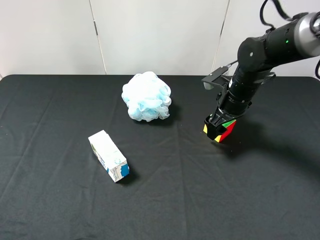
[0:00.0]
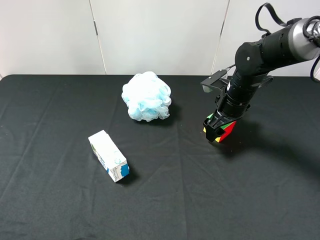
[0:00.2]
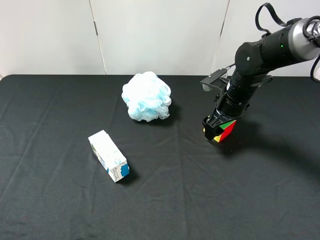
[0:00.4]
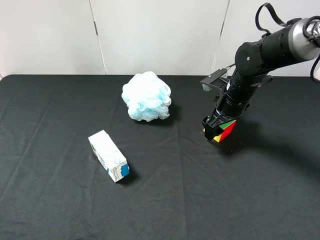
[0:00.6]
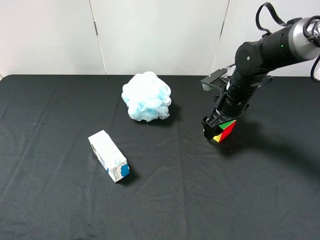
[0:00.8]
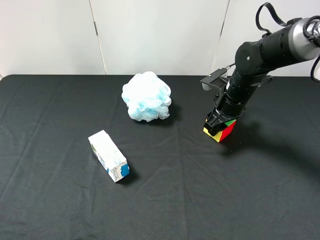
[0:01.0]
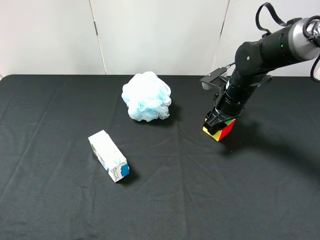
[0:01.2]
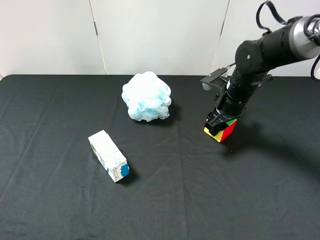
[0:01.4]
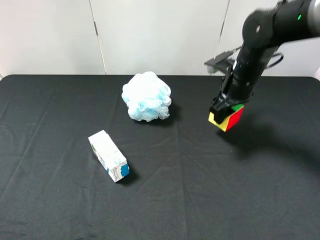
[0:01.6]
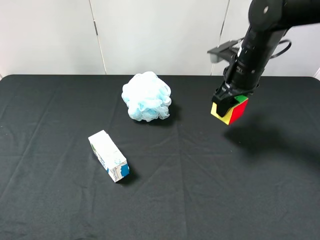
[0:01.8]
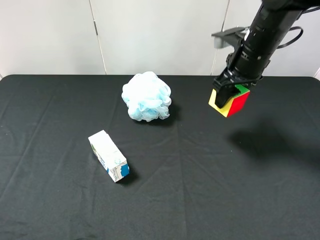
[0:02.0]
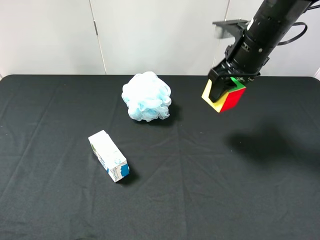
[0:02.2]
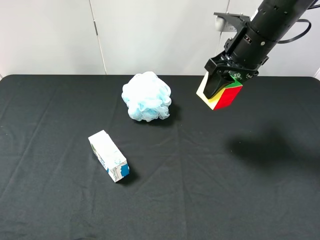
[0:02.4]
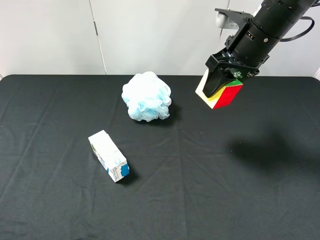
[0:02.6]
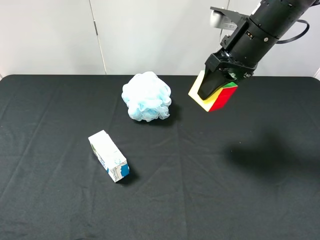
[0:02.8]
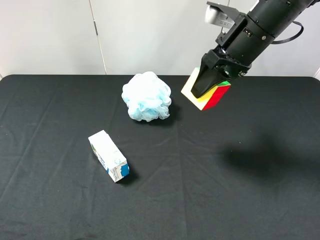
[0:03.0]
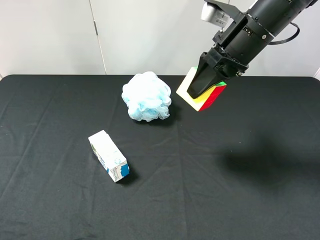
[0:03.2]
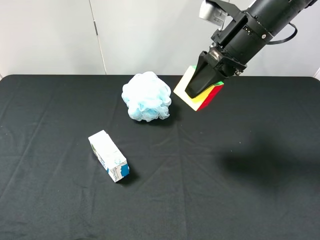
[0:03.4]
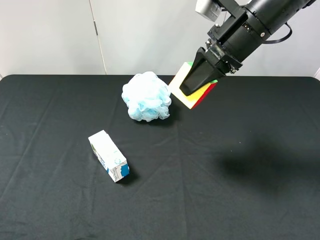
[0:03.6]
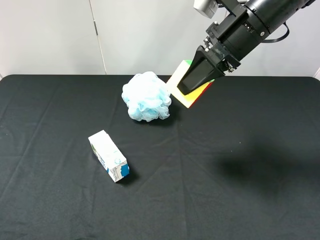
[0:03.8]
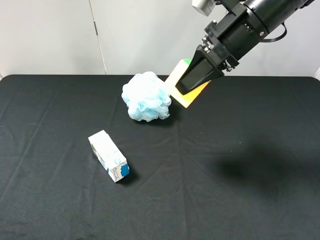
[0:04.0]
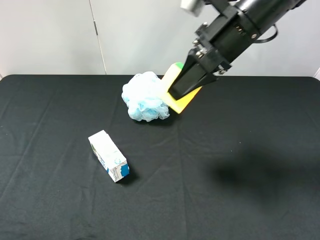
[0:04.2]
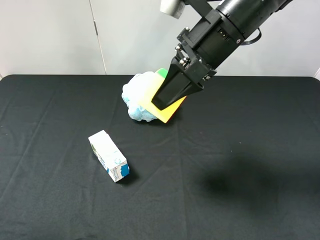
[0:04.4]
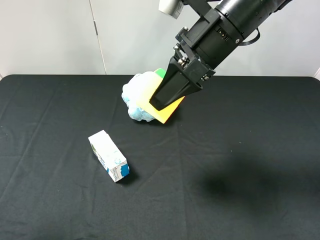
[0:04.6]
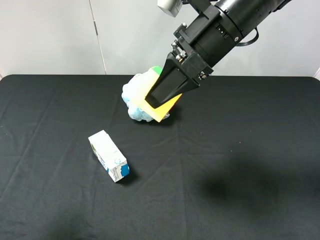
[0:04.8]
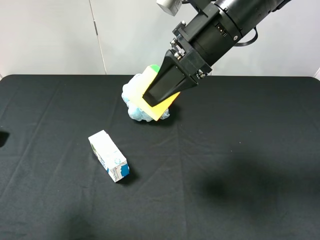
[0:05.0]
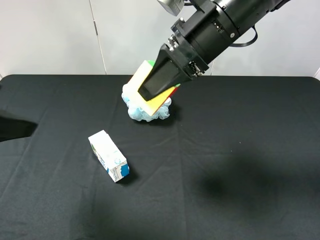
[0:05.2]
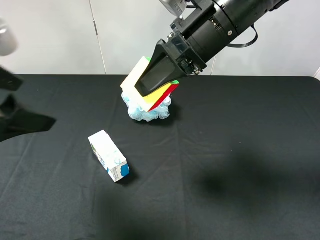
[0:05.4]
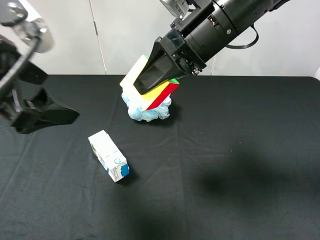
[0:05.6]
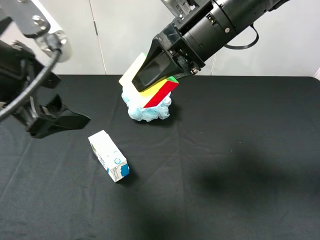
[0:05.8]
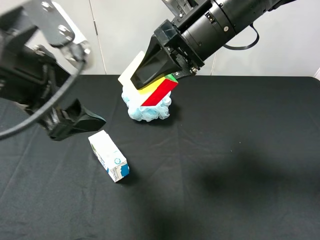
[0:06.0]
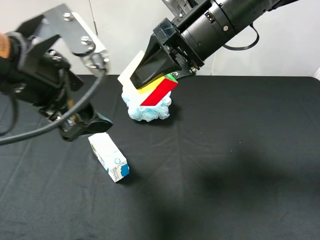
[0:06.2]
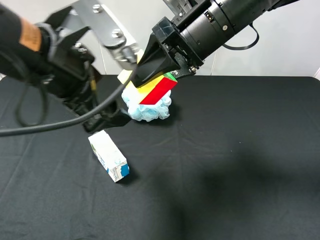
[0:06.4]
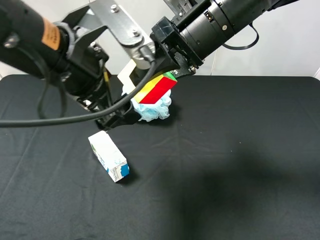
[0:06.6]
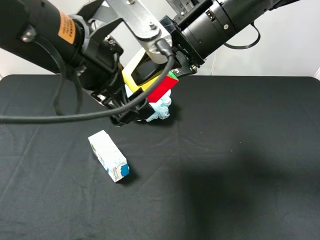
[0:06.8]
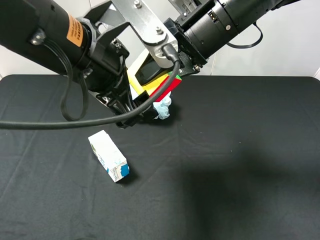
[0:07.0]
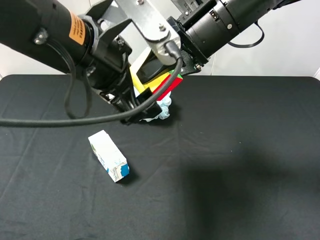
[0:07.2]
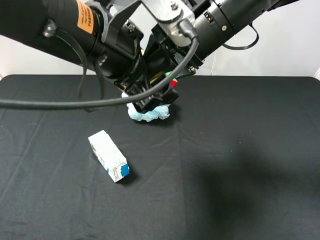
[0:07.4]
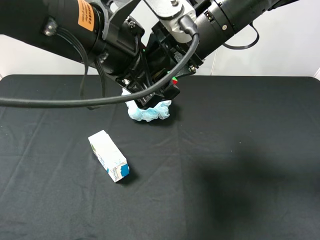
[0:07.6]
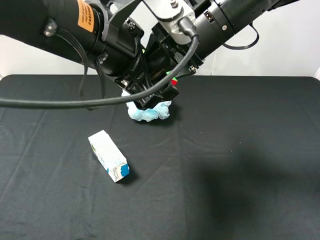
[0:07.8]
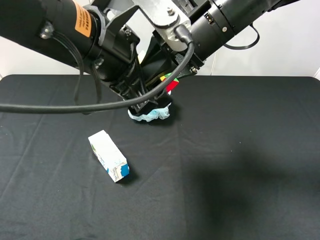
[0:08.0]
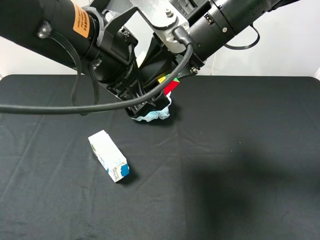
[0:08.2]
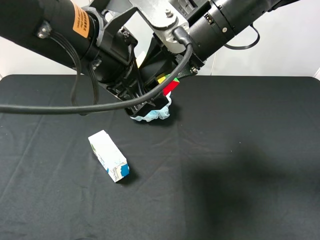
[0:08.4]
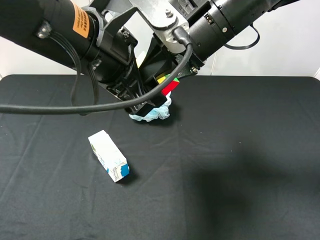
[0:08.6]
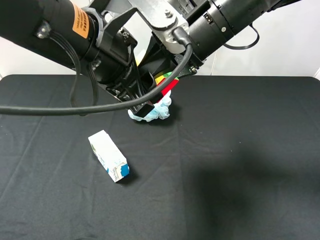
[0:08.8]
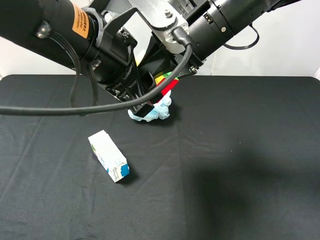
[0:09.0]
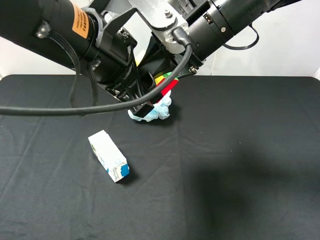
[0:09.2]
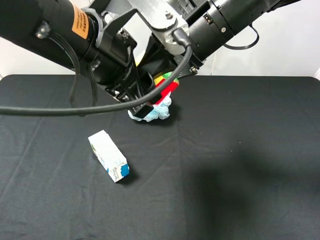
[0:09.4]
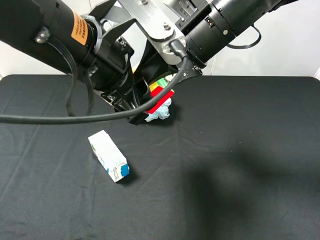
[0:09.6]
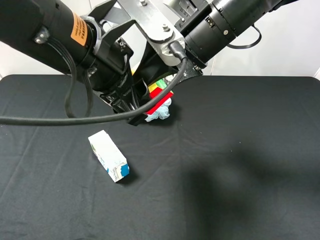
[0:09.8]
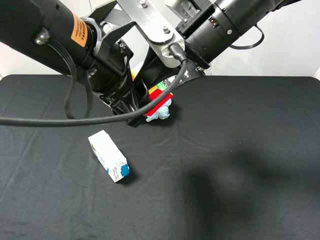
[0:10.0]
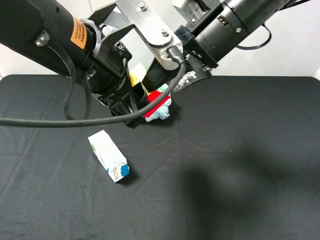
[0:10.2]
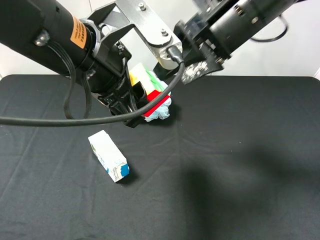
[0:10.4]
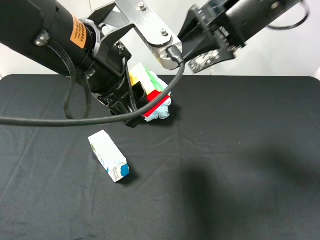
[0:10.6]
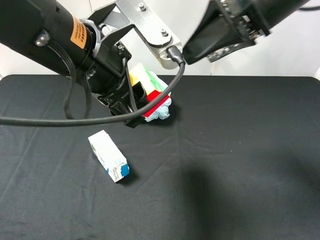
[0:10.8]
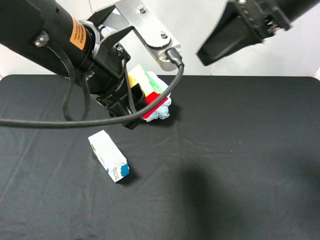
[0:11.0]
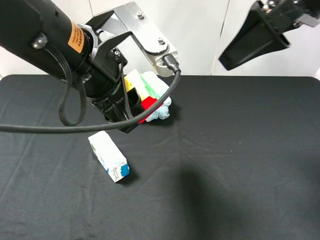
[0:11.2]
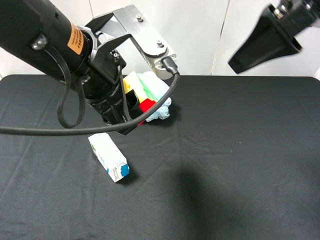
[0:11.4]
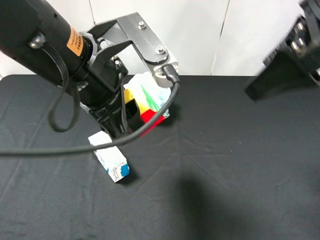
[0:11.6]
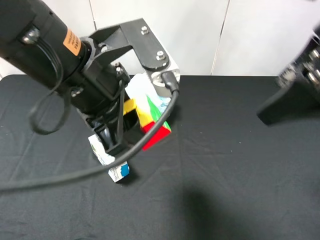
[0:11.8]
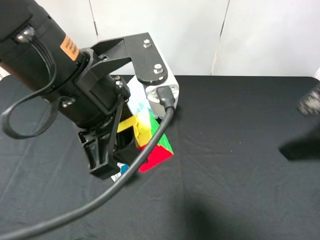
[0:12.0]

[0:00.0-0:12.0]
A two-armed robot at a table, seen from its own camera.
Task of the whole recording: use the right gripper to pick up the item and transfer it from the right gripper to the left gripper.
Step, 0:01.4 to 0:09.8: Pass the Rubik's Cube to the left gripper.
0:00.0 to 0:01.6: The right gripper goes some 5 cm upward, and closes up.
0:01.6 to 0:03.0: The right gripper travels upward by about 10 cm.
0:03.0 to 0:04.4: The left gripper shifts about 5 cm forward, while the right gripper goes about 5 cm to the left.
0:04.4 to 0:06.0: The left gripper moves to the right and forward, roughly 20 cm.
0:06.0 to 0:07.6: The left gripper travels to the right by some 10 cm.
0:07.6 to 0:09.0: The left gripper closes.
0:09.0 to 0:10.4: The right gripper opens up.
0:10.4 to 0:12.0: The right gripper moves backward and to the right, approximately 20 cm.

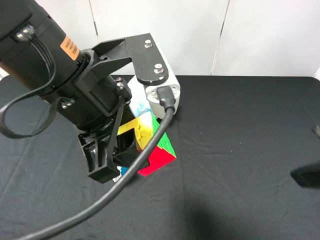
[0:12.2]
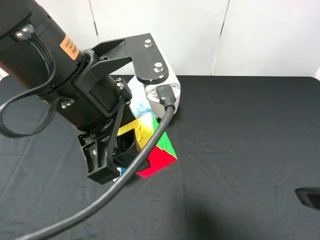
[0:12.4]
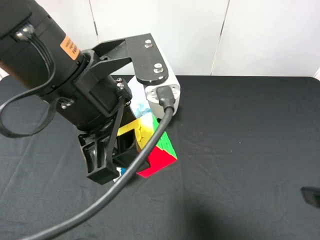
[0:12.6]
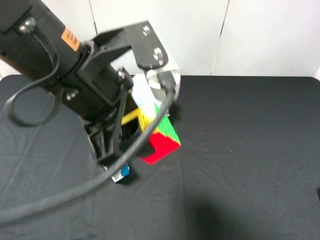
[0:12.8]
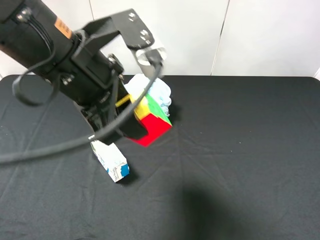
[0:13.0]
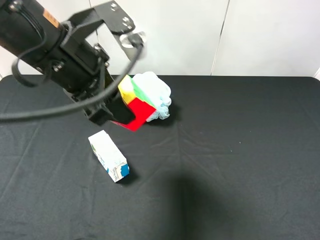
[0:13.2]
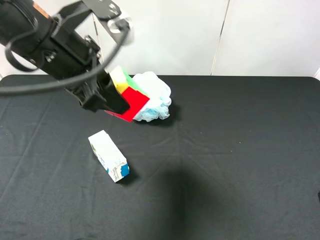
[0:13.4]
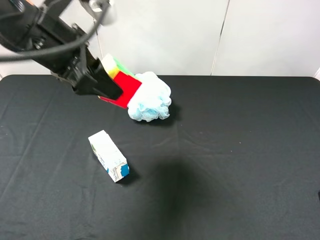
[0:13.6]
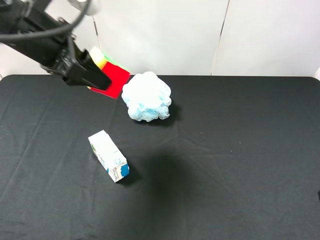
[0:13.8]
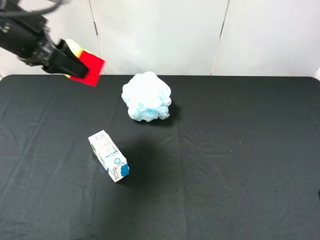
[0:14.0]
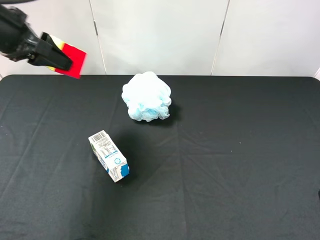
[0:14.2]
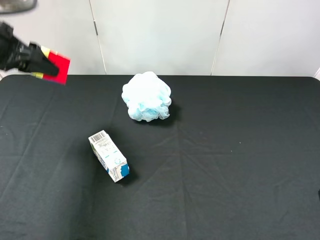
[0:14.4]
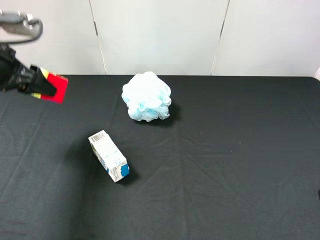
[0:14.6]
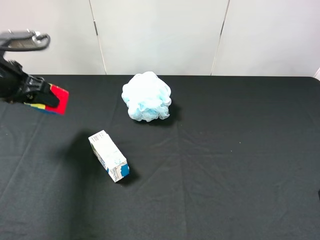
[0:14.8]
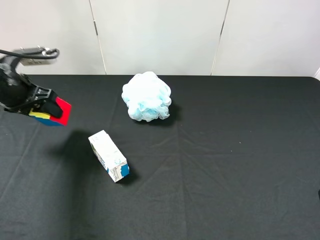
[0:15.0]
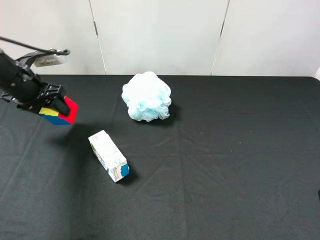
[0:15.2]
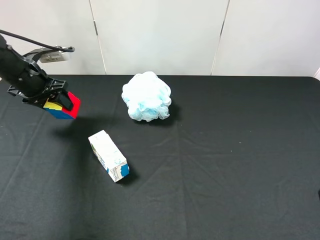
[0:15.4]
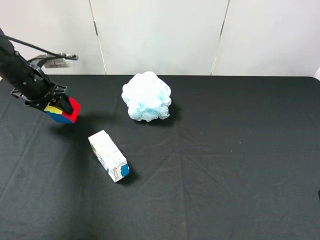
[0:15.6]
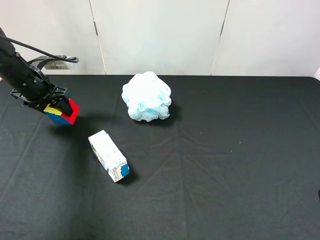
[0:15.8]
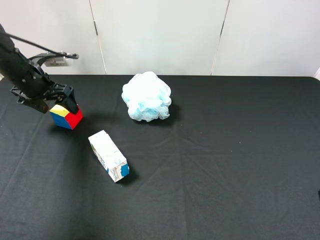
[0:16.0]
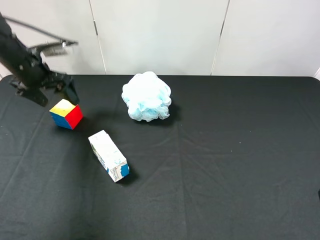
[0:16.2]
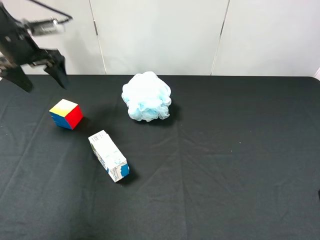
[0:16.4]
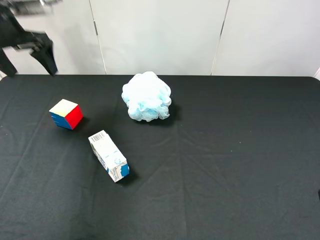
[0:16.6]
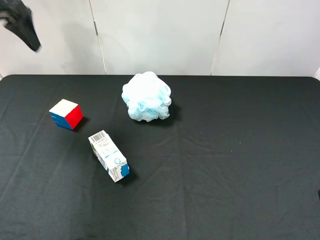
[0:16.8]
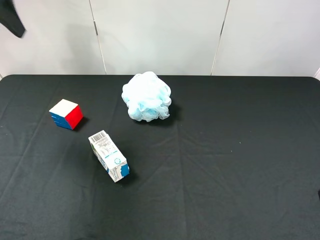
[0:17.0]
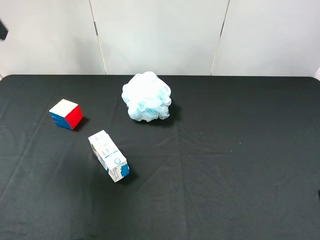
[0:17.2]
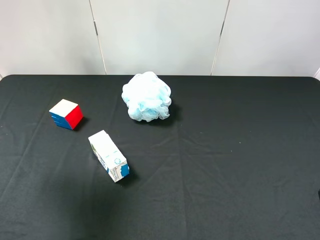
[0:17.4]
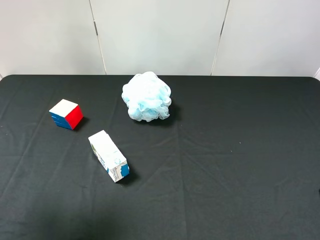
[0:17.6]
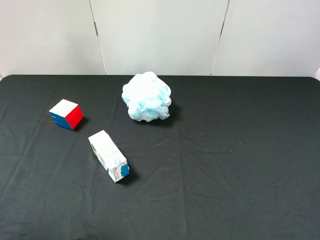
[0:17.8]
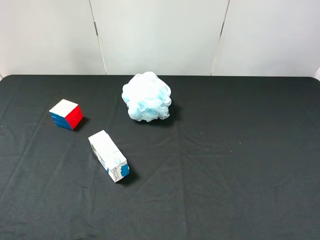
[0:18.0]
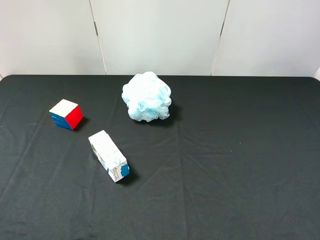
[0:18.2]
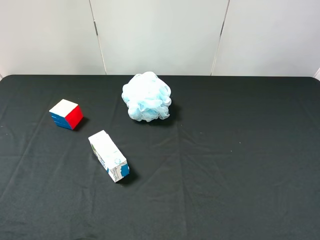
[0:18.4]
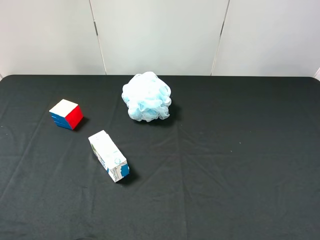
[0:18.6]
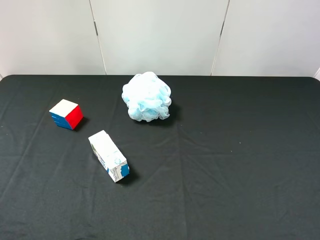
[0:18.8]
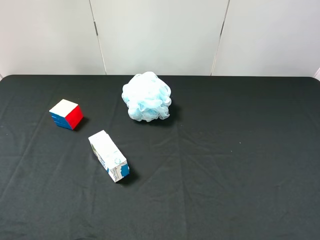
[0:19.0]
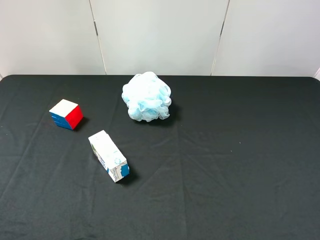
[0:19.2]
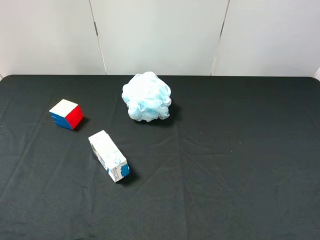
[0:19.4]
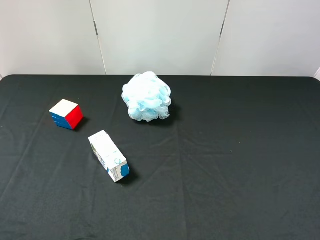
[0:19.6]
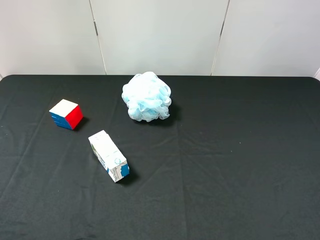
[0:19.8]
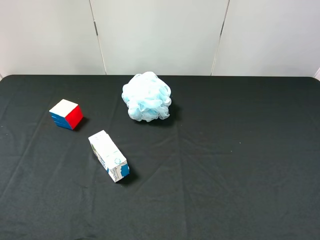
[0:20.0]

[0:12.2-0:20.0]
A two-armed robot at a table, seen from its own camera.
Task of the whole recording: use the right gripper to pick up the item and transfer it from the right gripper to the left gripper.
Step, 0:12.2 to 0:16.2: The left gripper places milk on the left side of the table.
0:12.2 to 0:13.8: The right gripper is displaced backward by roughly 10 cm; the left gripper heads to the left and forward, covering approximately 15 cm.
0:13.8 to 0:15.4: The left gripper heads downward, to the left and forward, covering approximately 20 cm.
0:15.4 to 0:16.8: The left gripper travels upward by some 20 cm, and opens its fingers.
0:16.8 to 0:18.4: The left gripper shifts about 35 cm backward.
